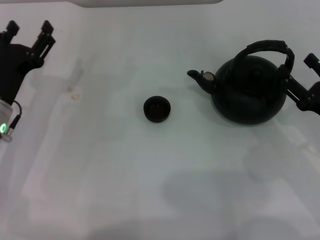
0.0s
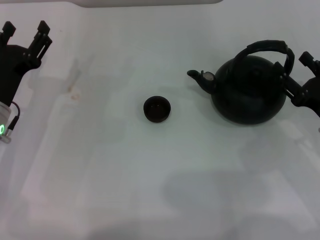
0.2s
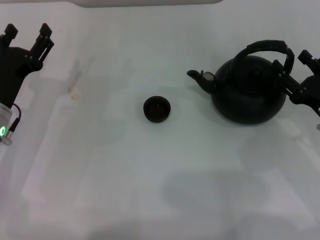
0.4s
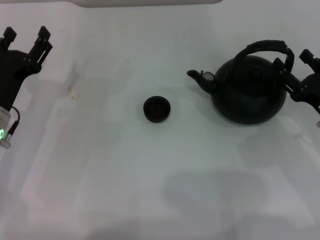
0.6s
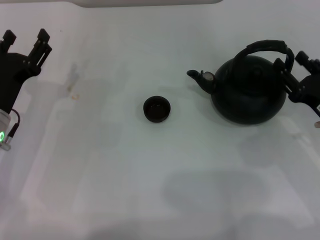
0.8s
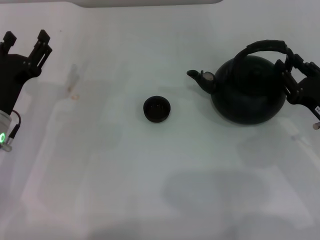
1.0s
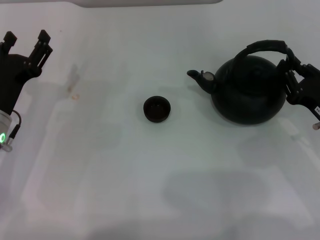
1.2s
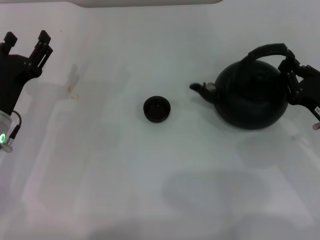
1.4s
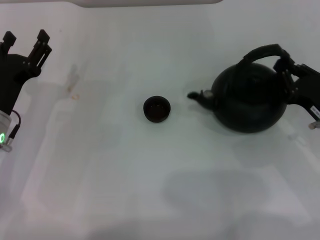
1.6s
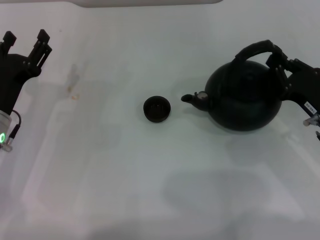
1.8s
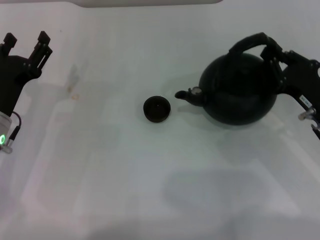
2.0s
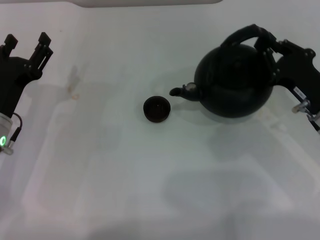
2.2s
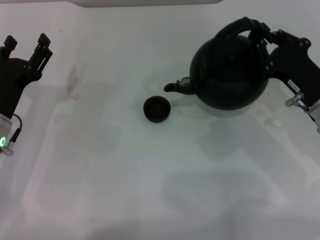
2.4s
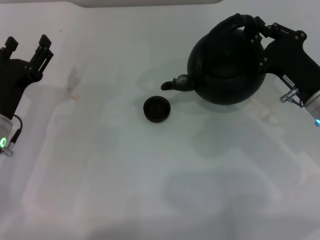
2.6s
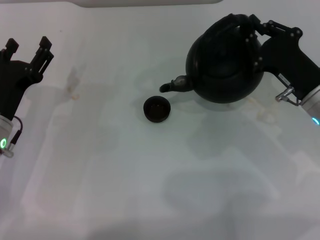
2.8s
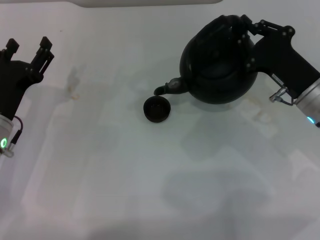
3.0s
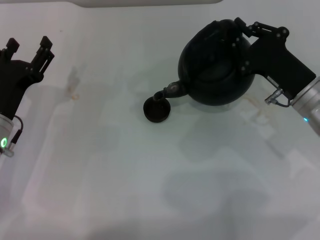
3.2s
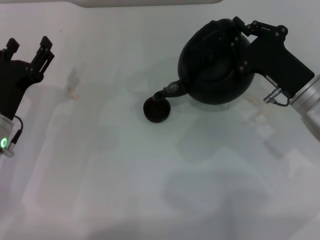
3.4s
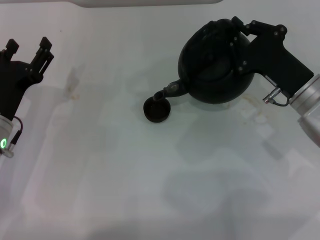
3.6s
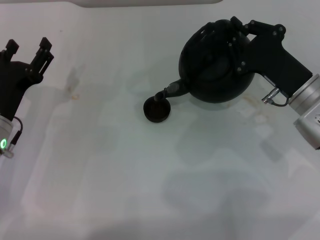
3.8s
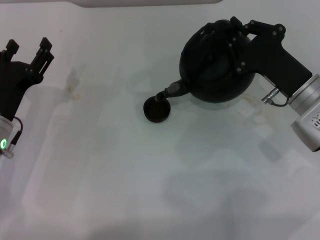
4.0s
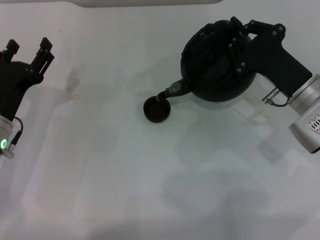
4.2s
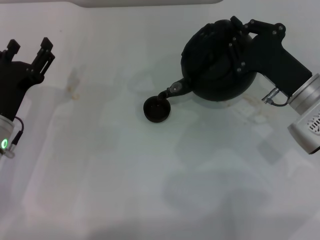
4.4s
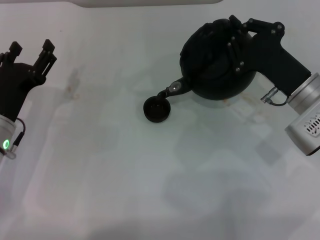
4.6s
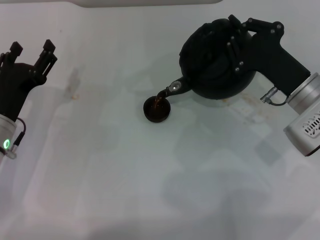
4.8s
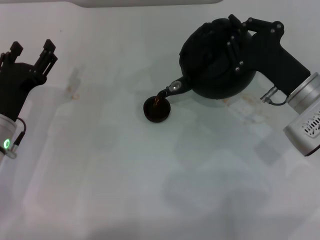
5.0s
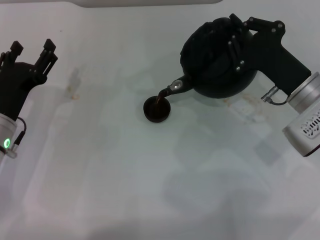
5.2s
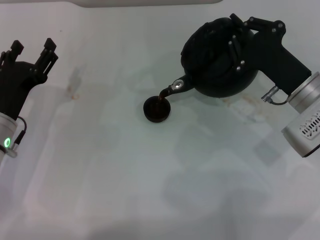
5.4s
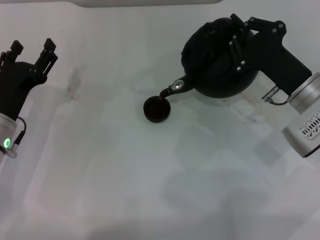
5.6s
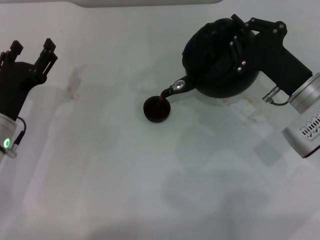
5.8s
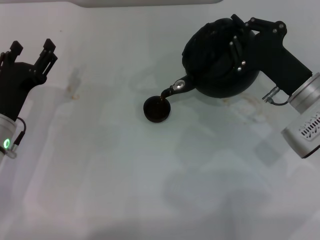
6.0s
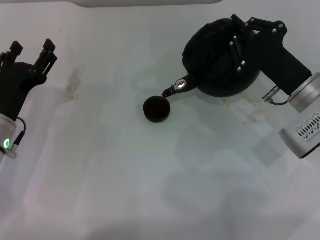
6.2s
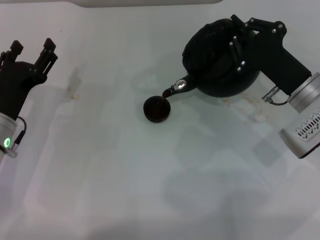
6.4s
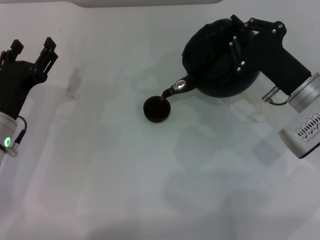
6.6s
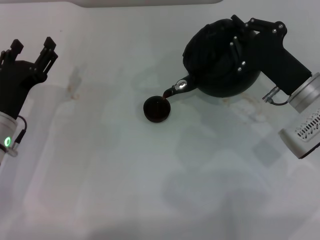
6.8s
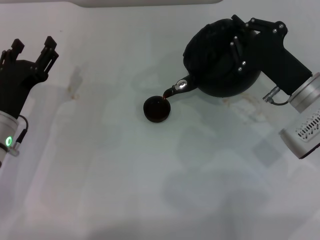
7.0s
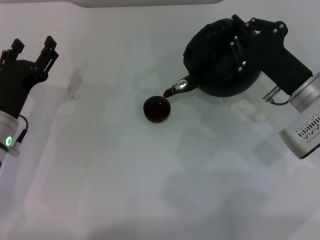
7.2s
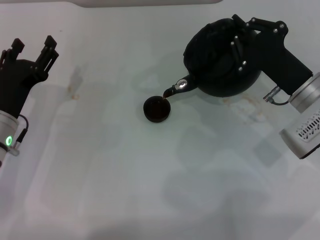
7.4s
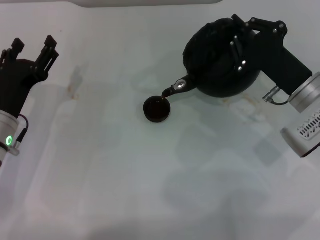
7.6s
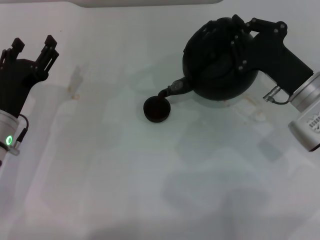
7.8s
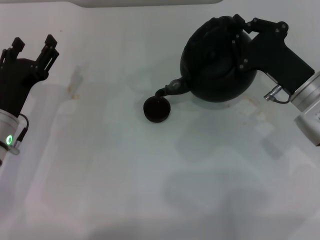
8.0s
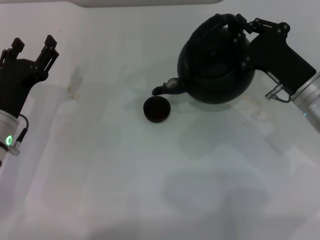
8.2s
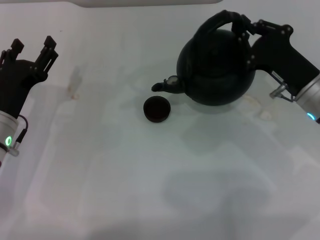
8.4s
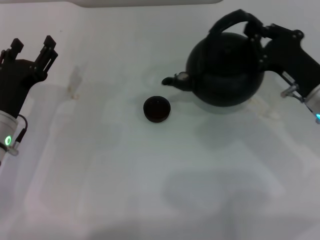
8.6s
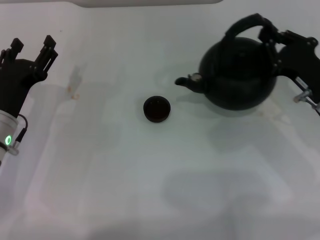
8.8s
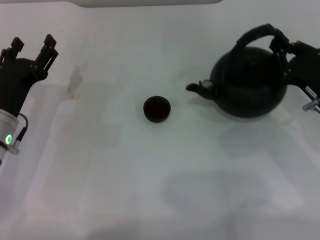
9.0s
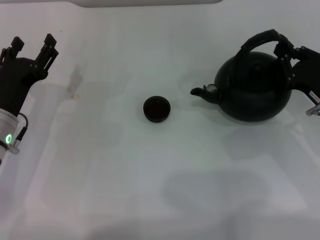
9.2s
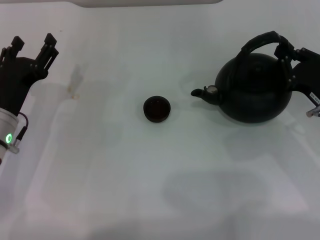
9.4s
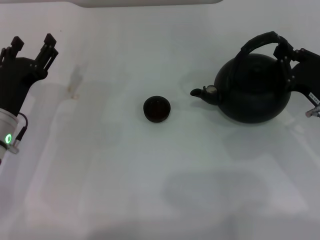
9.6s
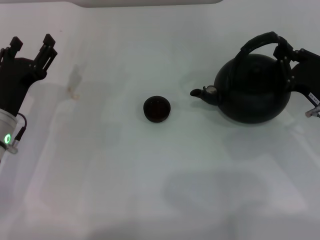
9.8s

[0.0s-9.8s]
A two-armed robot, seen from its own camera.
Task of the whole recording: Grasp the handle of the teapot with one hand and pour tea into the teacup.
Step, 0.0s to 2.6s: Pick up the teapot with the right gripper.
Step, 3.0s to 8.2s: Pour tea into the teacup with the right gripper.
0.0s to 1.4s: The right gripper closes up.
1.4s to 2.8s: The right gripper shifts roughly 5 cm to the left.
2.8s to 4.2s: The grippers make only small movements.
4.2s to 5.6s: The grippers move only a little.
5.6s to 7.0s: The two grippers keep their place.
8.4s to 9.8s: The right gripper is displaced to the right by about 5 cm.

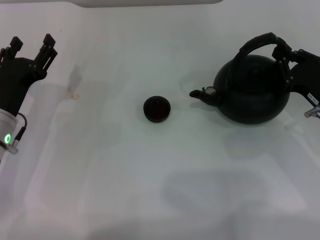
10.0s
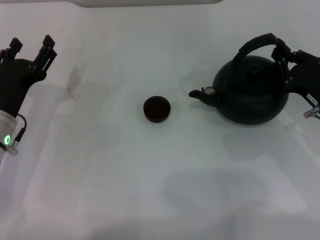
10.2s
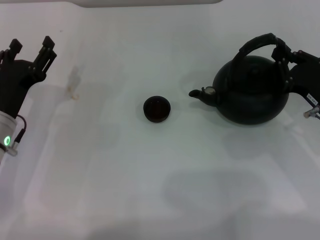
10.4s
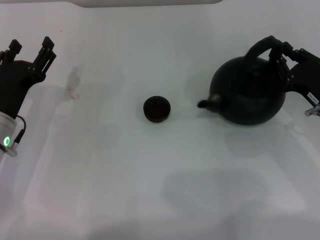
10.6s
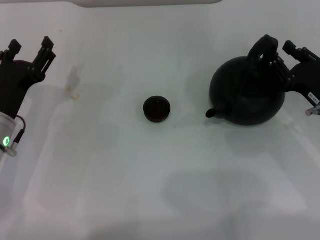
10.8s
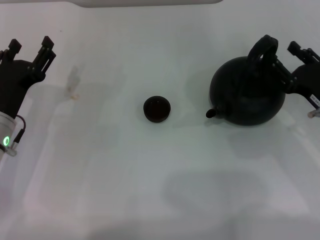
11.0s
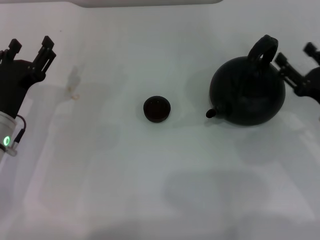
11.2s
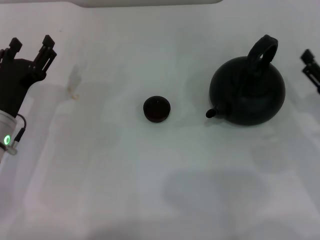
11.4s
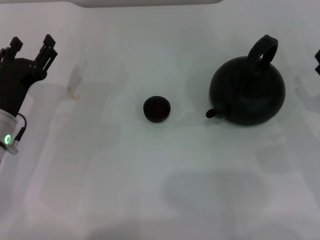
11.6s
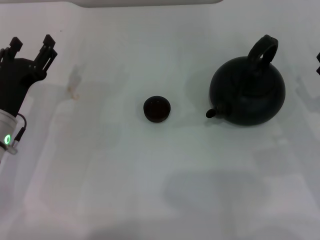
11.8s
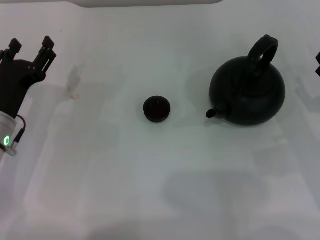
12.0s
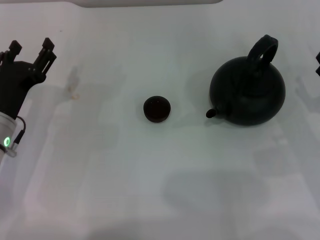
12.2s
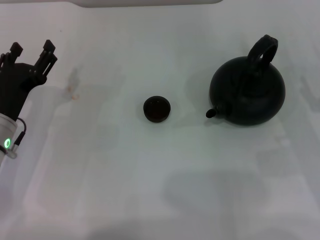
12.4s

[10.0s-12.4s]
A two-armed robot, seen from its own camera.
Task of the whole recording: Grasp the handle of the teapot with one hand and pour tea into the teacup.
10.0s to 11.2s: The right gripper opens its fingers.
11.2s to 12.4s: The grippers stay close to where they were, moving slightly.
